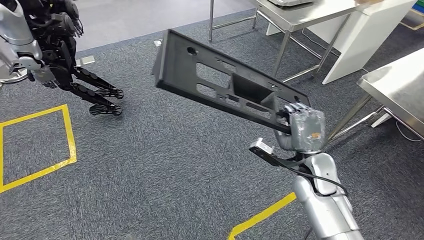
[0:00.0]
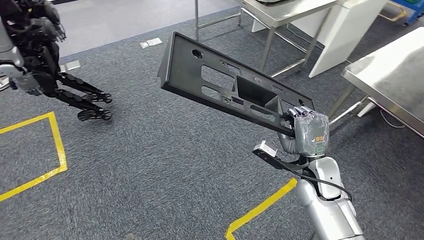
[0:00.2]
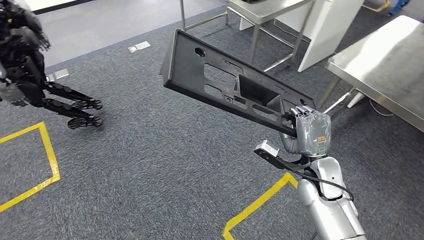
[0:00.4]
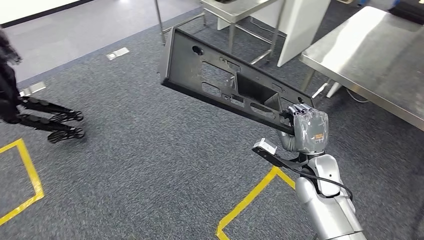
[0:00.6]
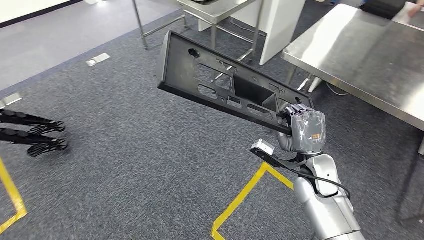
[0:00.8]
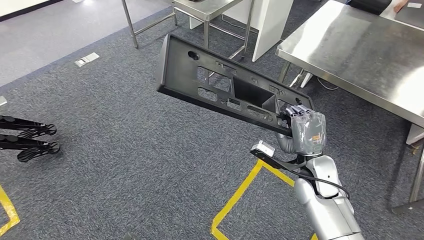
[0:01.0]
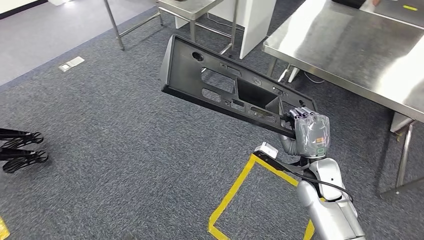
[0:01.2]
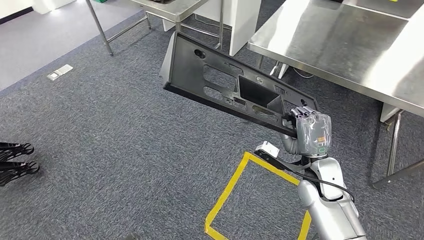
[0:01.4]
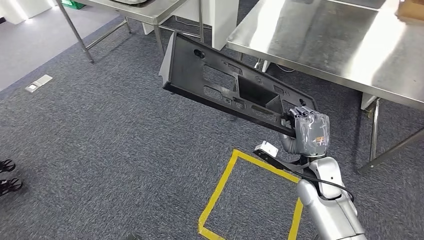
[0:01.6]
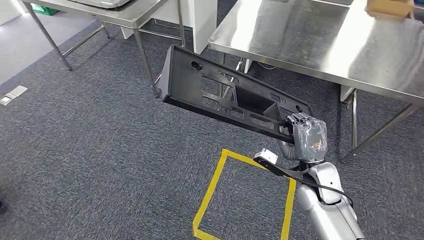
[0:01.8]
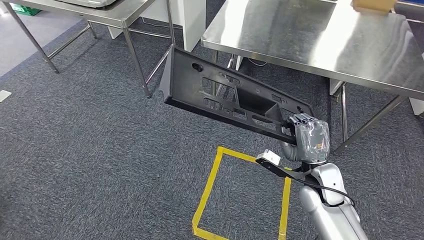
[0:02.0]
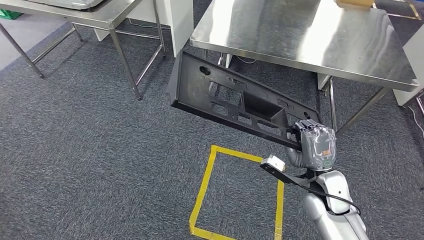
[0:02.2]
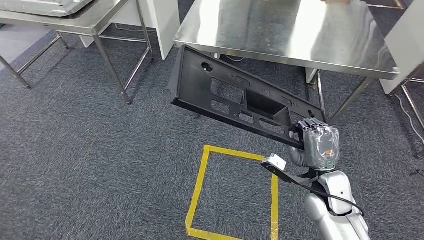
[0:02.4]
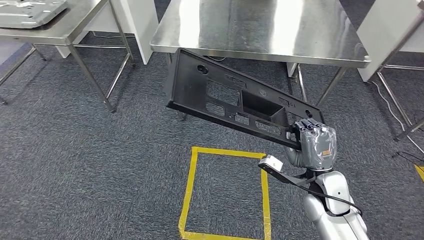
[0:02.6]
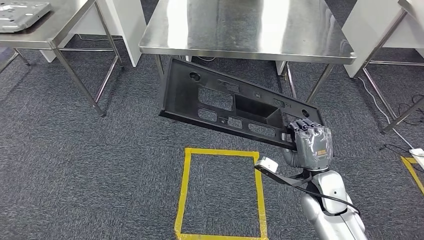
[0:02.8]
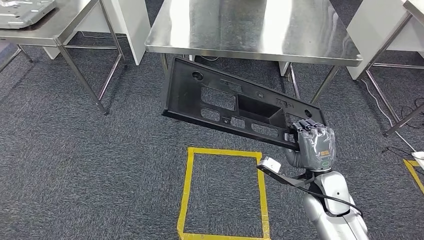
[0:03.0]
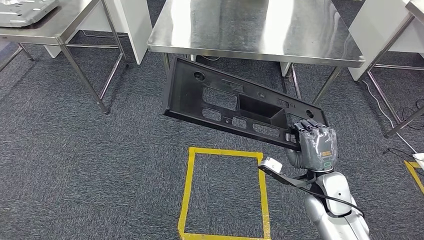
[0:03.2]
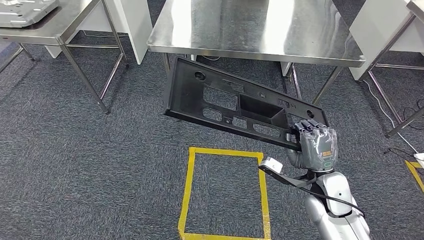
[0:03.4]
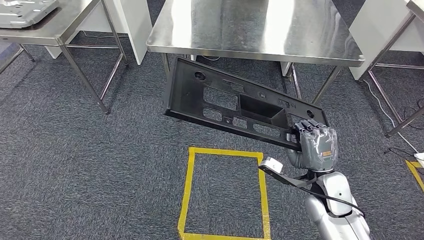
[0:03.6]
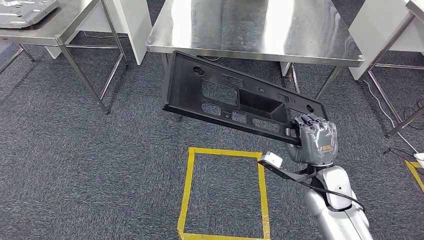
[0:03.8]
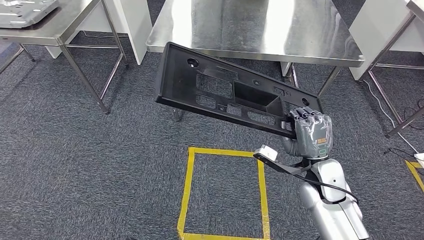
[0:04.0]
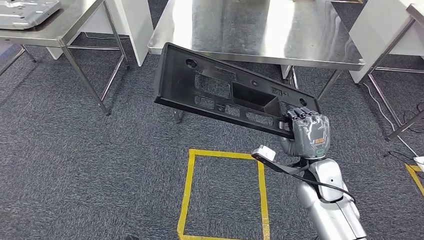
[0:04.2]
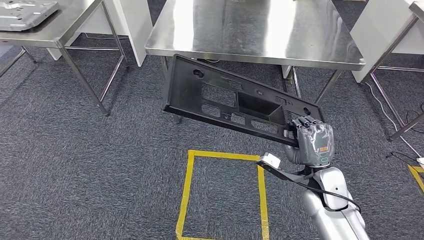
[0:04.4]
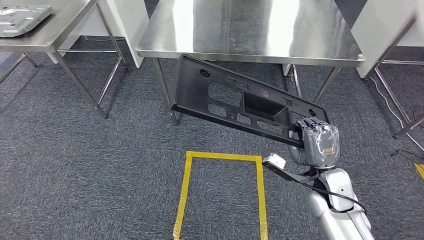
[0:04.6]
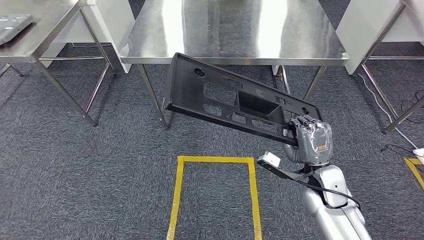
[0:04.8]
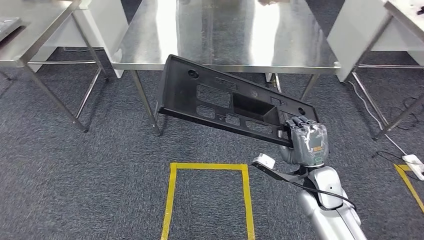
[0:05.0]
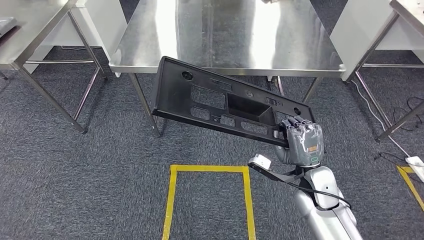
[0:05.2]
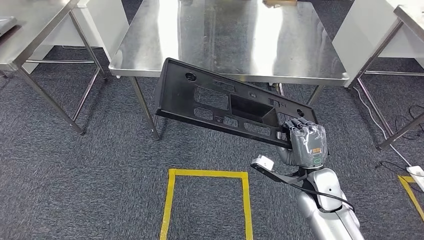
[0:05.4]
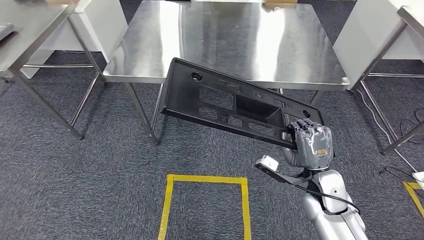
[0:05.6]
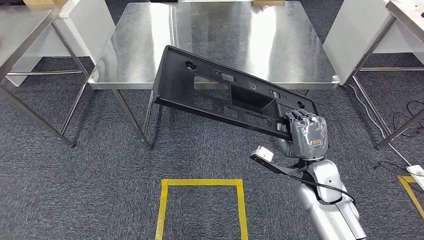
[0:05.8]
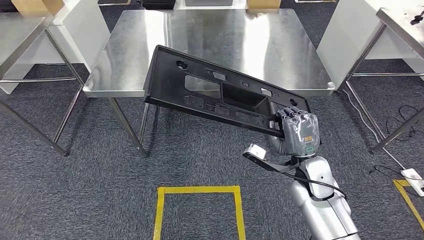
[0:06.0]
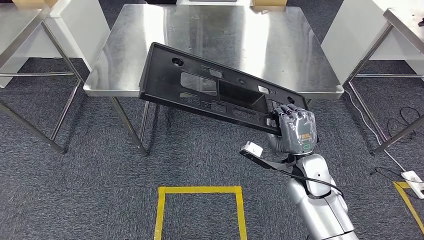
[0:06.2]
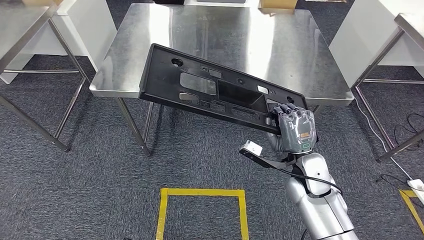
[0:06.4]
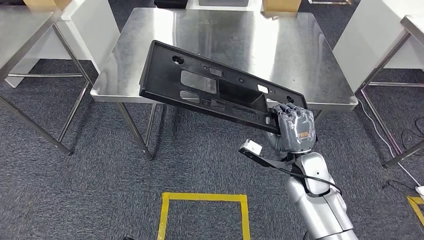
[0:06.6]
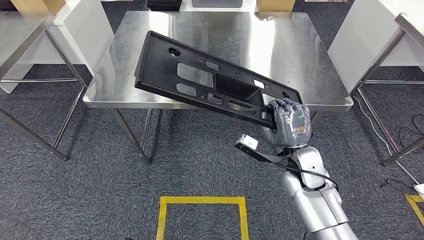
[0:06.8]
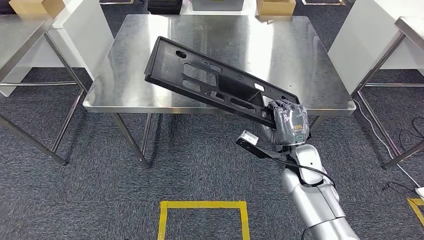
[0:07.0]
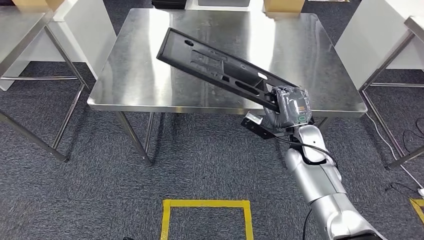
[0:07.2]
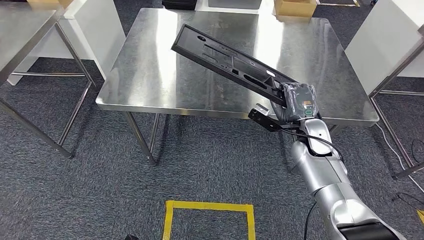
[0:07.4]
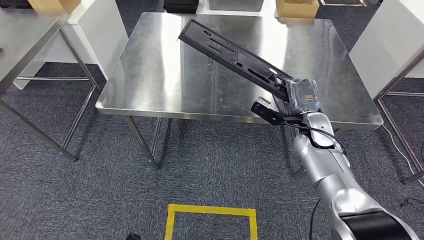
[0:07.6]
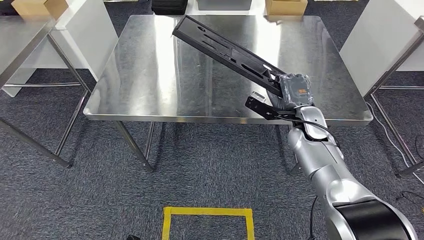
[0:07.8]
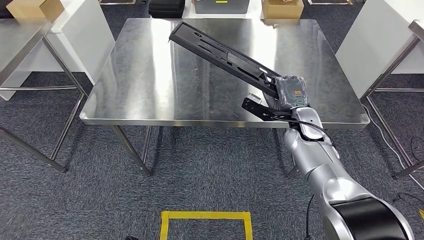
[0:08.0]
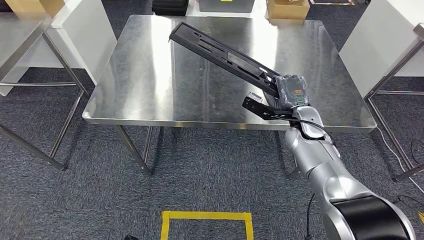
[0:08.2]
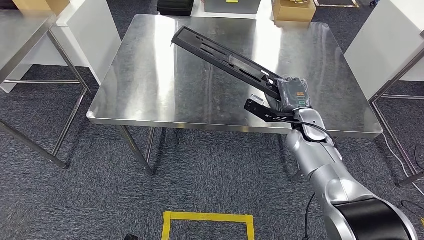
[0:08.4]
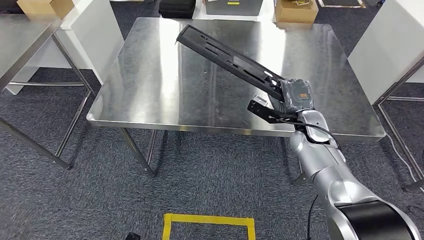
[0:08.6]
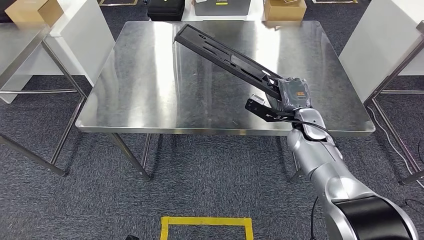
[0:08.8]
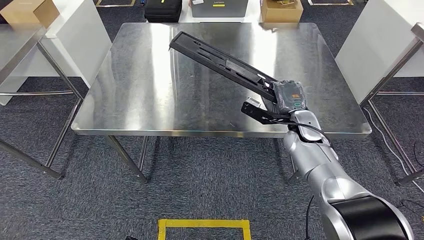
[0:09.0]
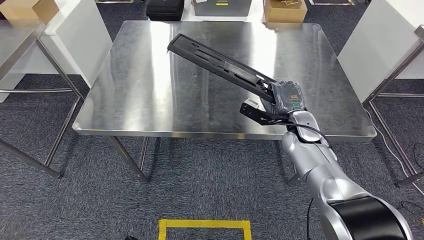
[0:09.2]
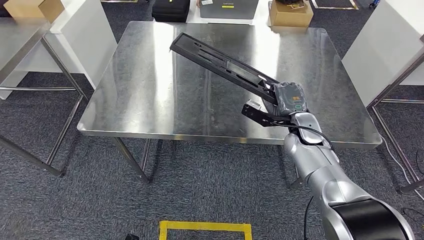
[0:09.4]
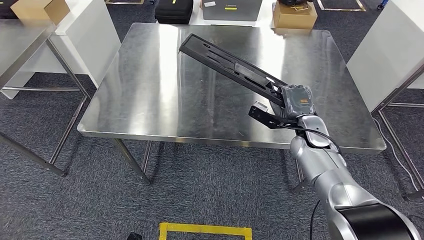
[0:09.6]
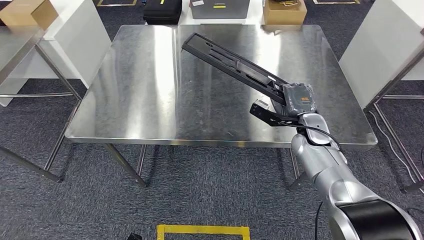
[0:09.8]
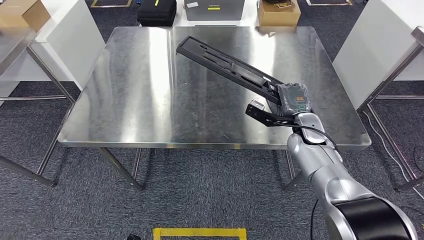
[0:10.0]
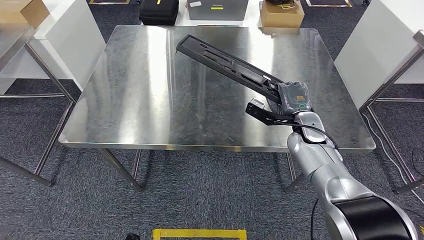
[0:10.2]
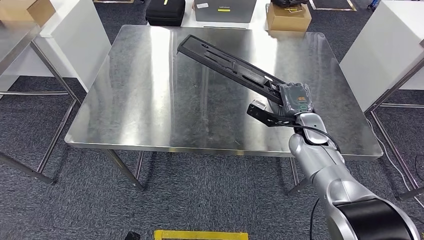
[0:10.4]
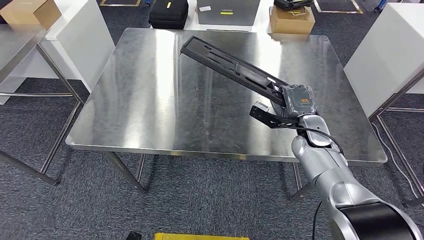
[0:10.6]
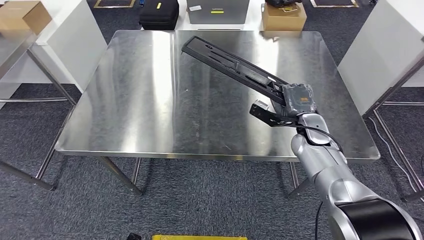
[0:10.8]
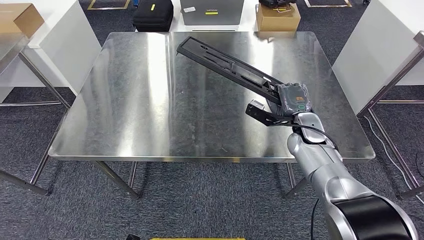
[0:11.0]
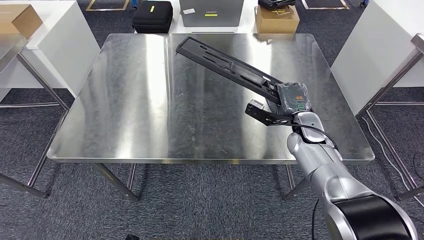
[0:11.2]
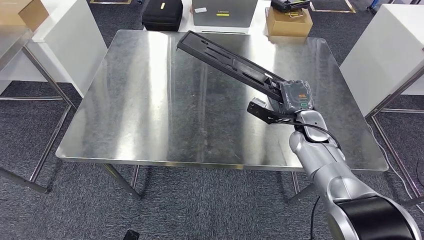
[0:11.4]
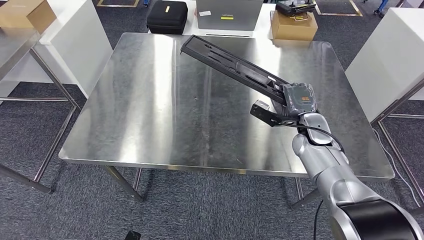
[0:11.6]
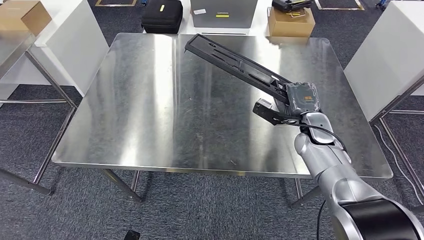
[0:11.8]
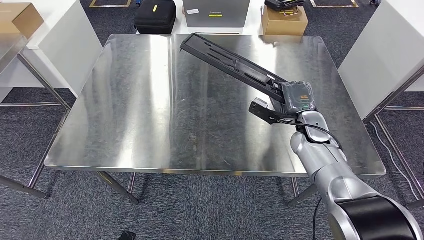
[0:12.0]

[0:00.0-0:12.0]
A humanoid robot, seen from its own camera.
Step, 0:00.0 to 0:07.8: Move the large material to the workbench.
0:03.0 to 0:04.4: There are only small adjustments of the hands.

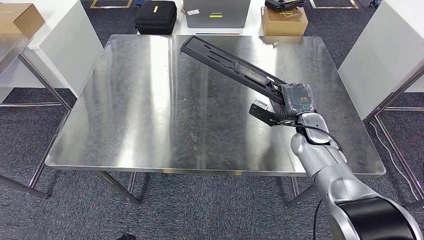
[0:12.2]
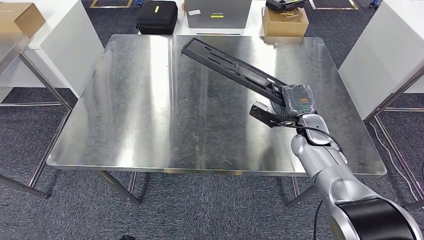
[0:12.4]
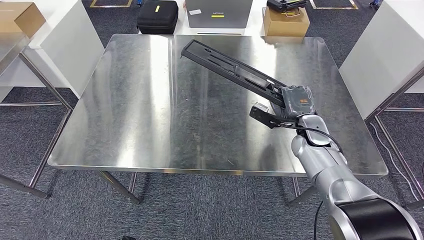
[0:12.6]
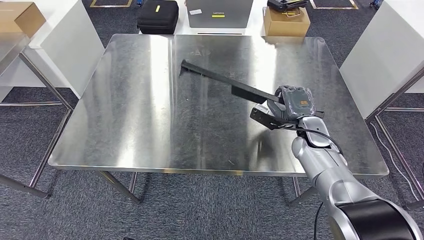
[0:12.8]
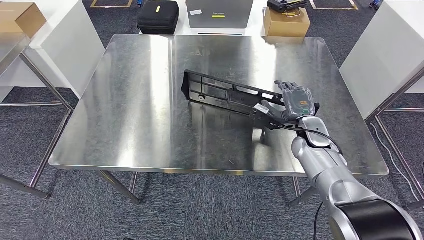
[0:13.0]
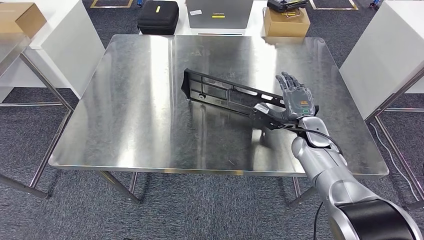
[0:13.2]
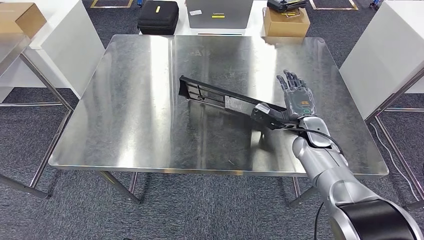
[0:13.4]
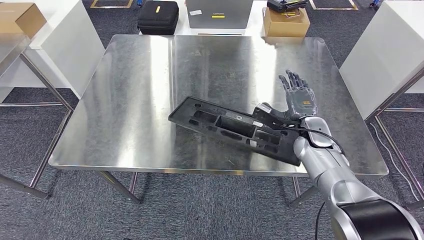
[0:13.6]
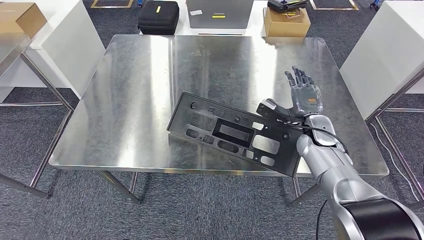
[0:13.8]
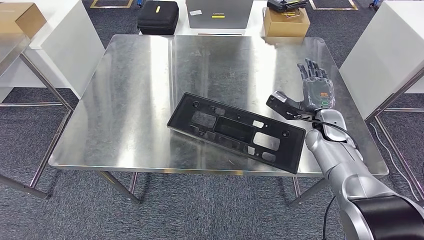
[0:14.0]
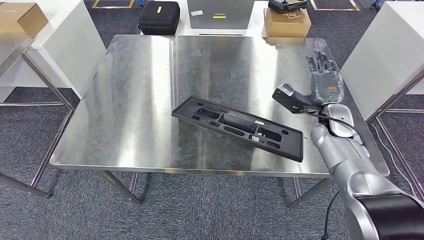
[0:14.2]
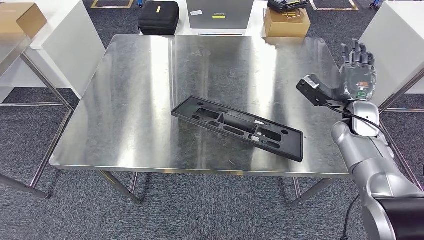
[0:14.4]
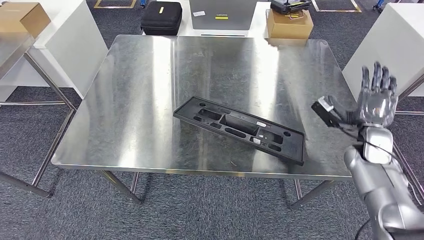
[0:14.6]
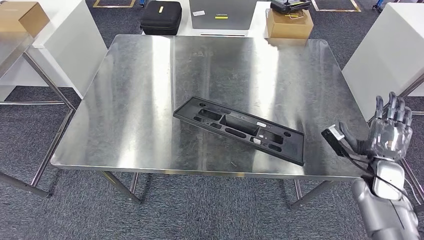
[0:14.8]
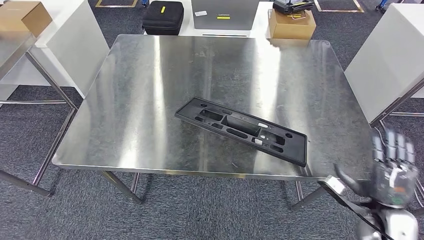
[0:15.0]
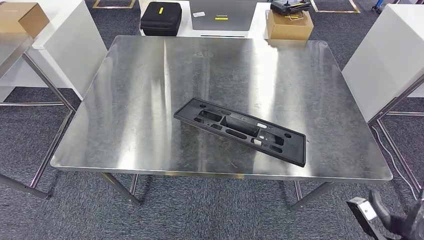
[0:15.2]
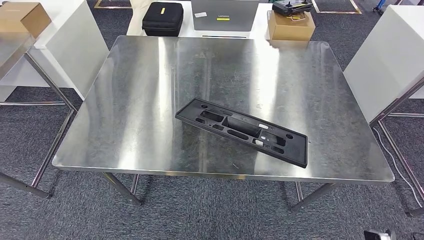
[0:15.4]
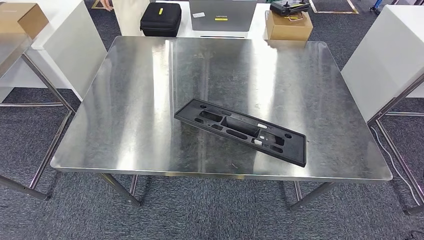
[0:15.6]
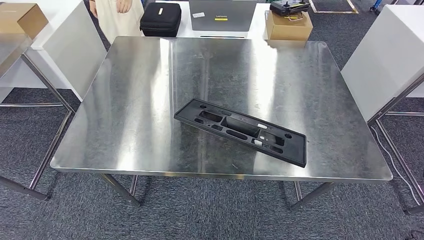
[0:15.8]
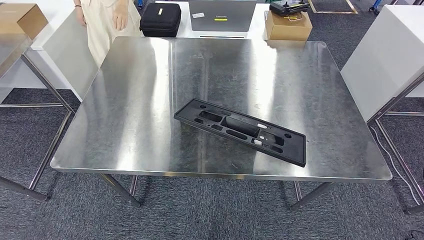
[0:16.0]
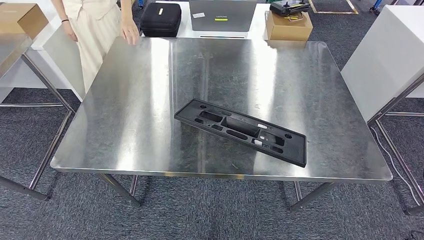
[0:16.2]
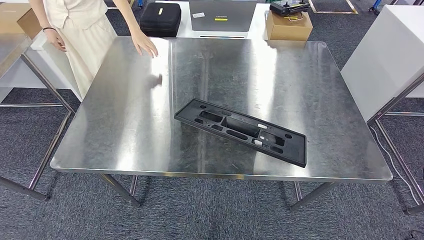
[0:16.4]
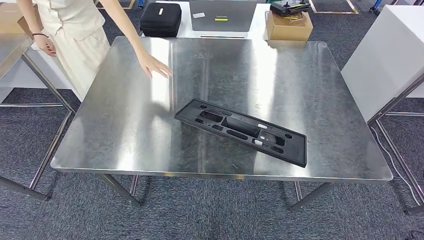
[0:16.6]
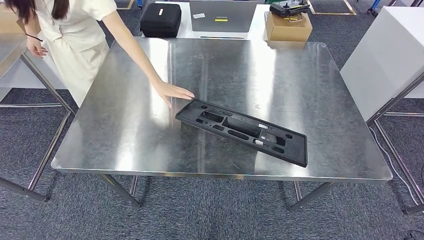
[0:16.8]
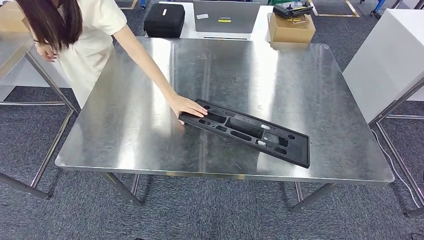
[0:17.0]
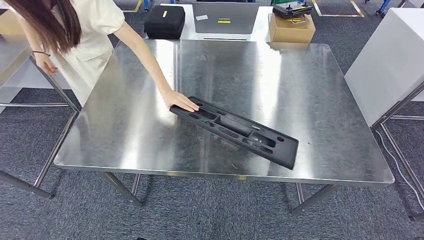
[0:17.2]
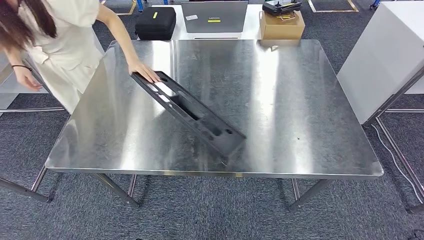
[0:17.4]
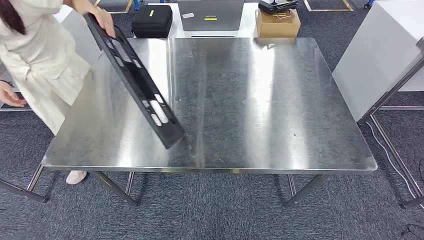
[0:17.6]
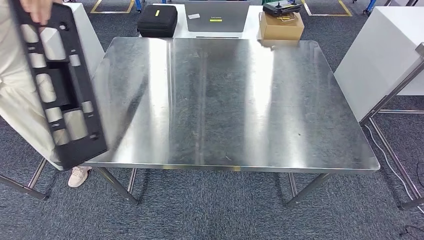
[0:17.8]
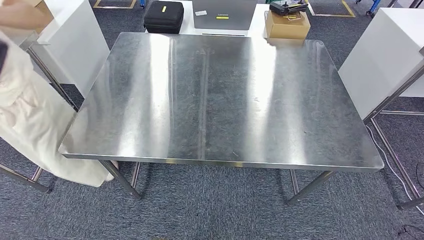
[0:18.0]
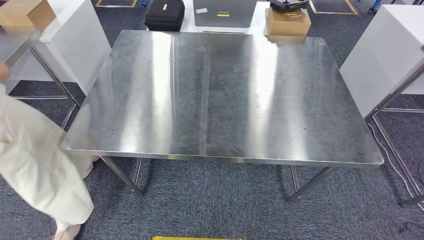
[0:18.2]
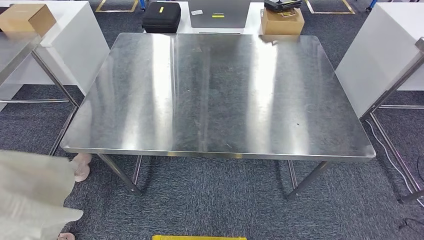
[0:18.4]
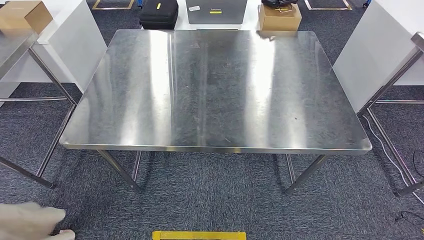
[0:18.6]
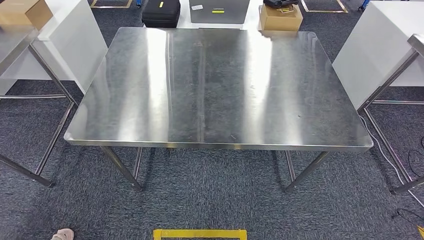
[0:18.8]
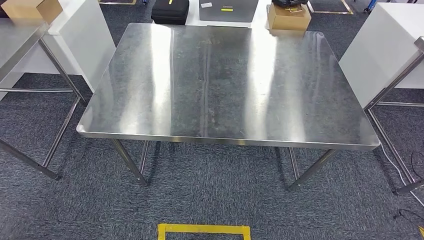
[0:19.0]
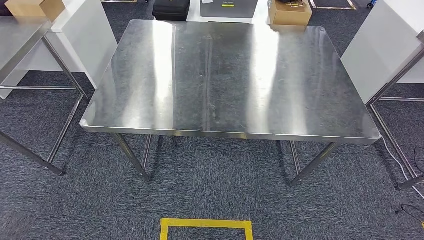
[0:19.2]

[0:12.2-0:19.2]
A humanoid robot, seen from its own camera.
Step, 0:12.2 to 0:15.8: Insert the large material into the corresponding slot on the workbench.
0:12.2 to 0:13.6: There are only small adjustments of the hands.
